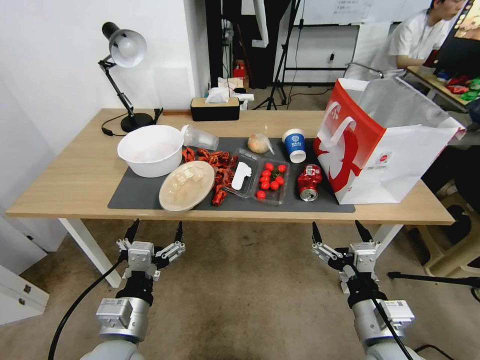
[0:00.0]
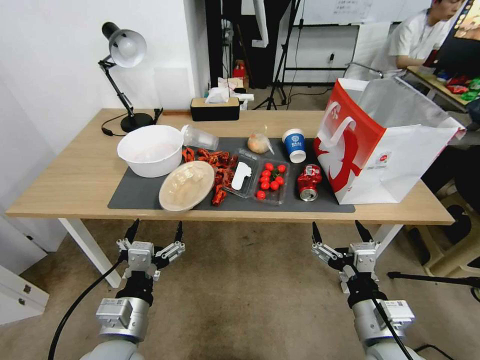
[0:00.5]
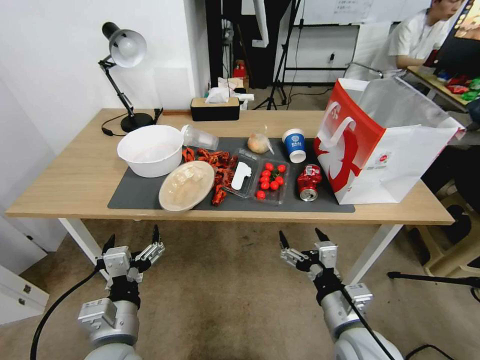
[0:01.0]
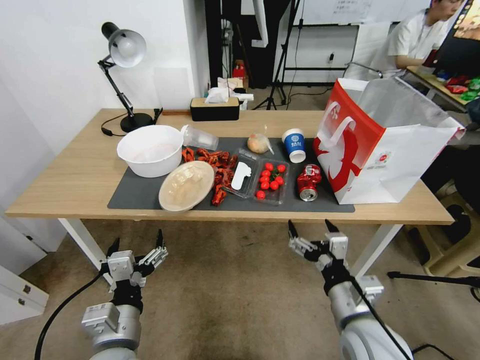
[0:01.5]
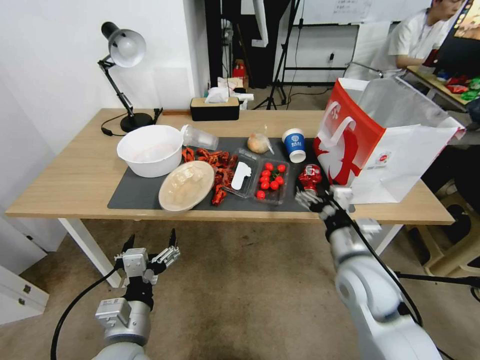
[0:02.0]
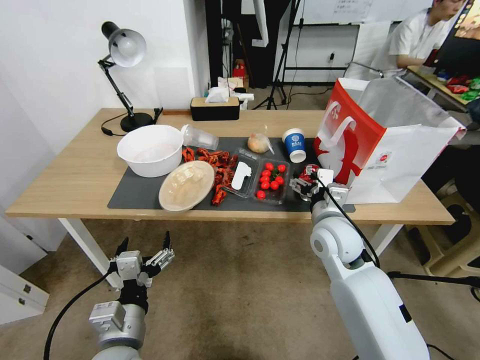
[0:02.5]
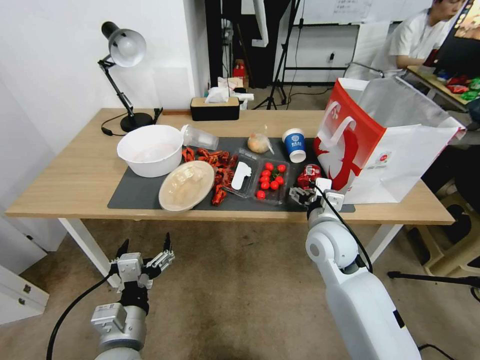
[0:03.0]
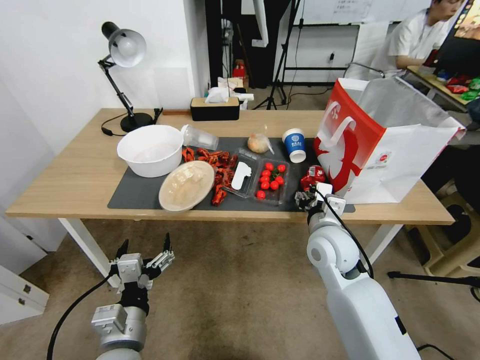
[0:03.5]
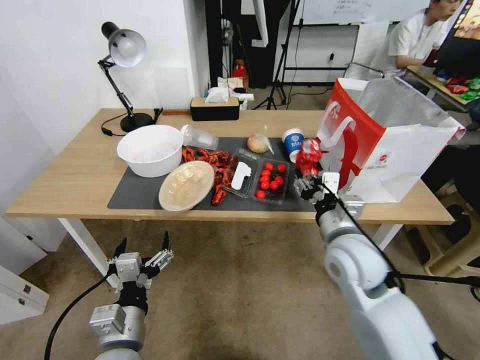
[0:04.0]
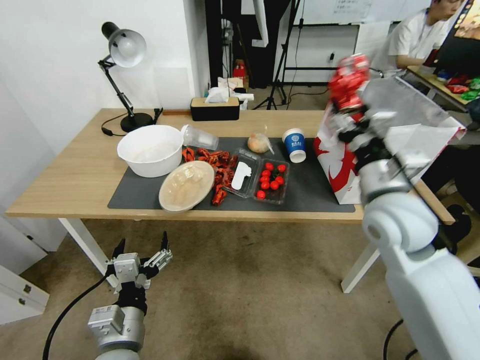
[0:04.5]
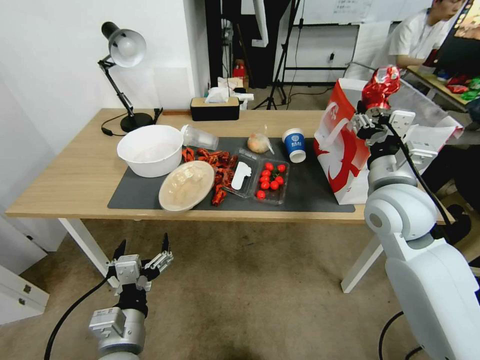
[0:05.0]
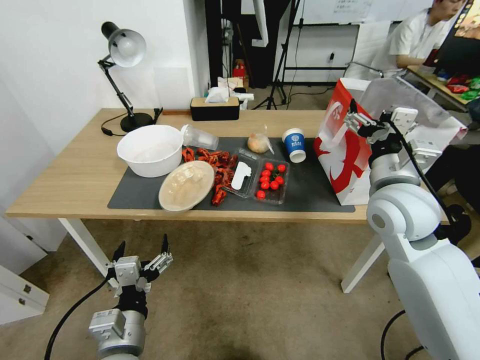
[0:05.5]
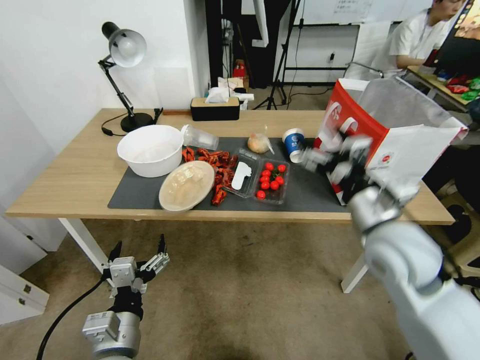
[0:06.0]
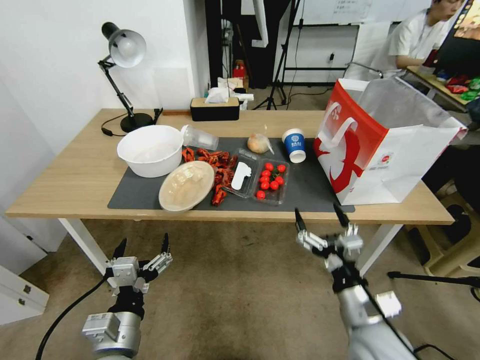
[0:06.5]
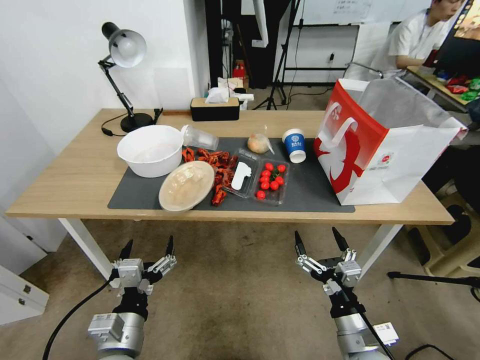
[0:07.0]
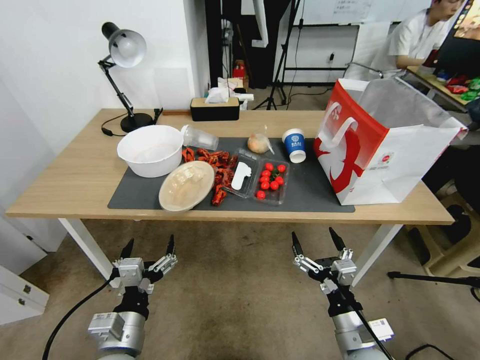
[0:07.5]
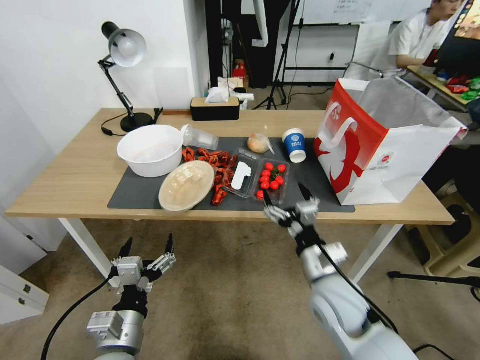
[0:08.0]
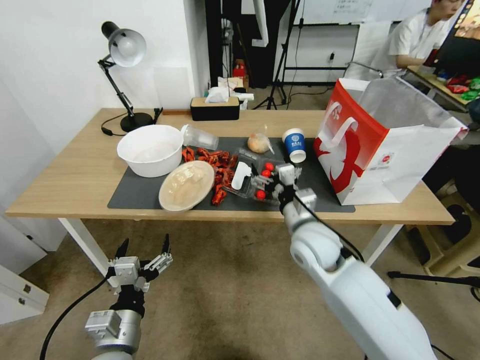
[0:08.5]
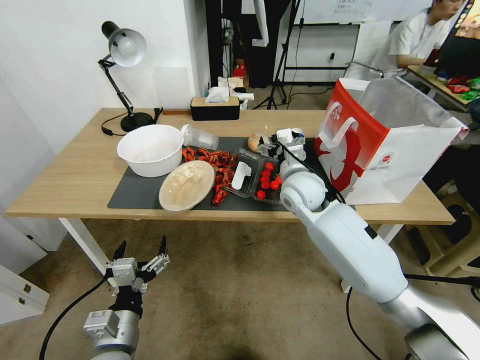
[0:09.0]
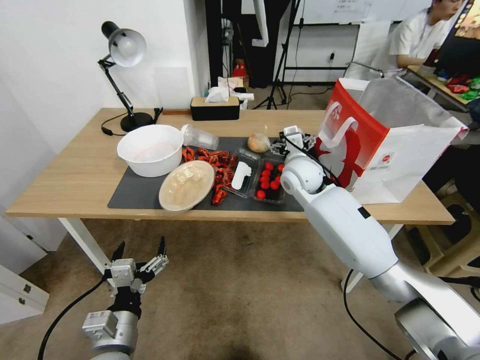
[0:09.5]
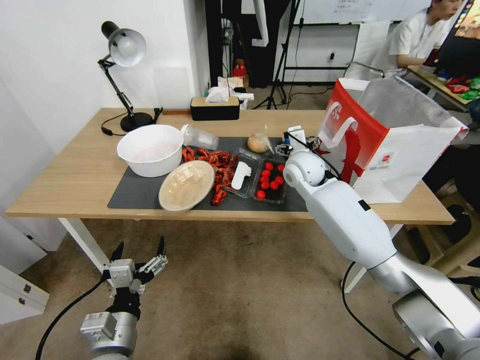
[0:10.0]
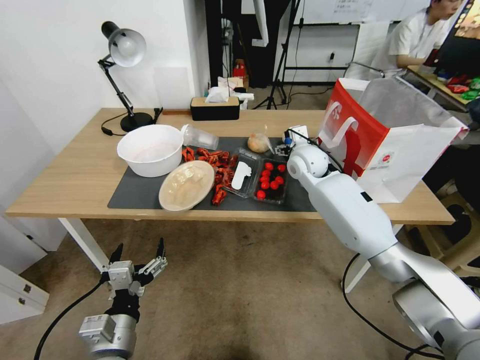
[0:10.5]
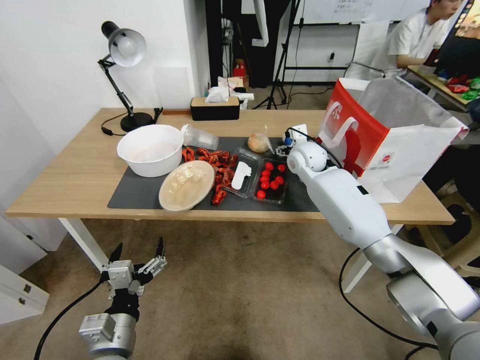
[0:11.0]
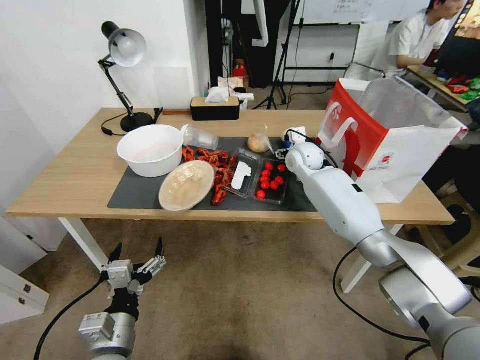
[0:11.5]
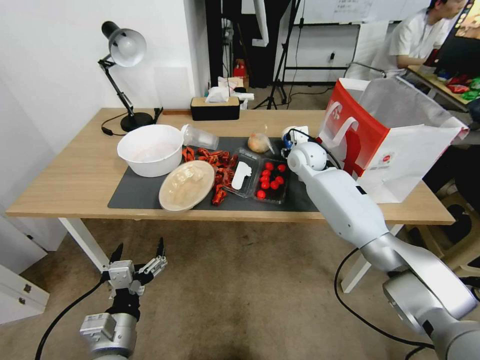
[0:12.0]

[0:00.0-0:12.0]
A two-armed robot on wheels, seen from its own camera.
0:02.0 to 0:04.0: The right gripper closes its fingers.
0:04.0 to 0:06.0: The right gripper is displaced upward by approximately 5 cm, and opens up.
0:06.0 to 0:08.0: The right gripper heads downward and to the left, covering roughly 15 cm.
0:08.0 to 0:10.0: The right gripper goes some 25 cm forward.
0:10.0 to 0:12.0: The right gripper goes some 5 cm forward, and closes up.

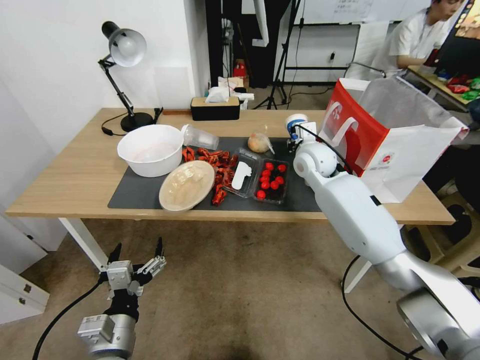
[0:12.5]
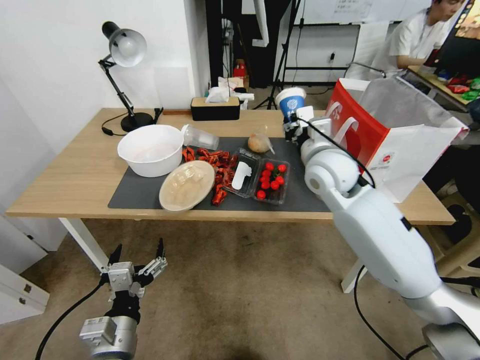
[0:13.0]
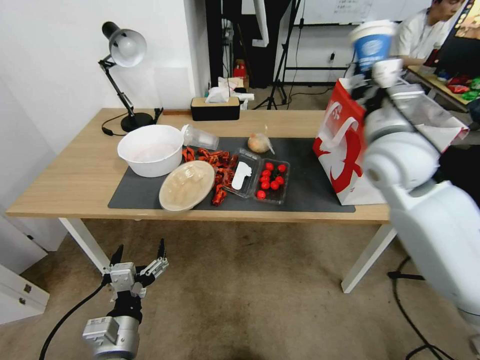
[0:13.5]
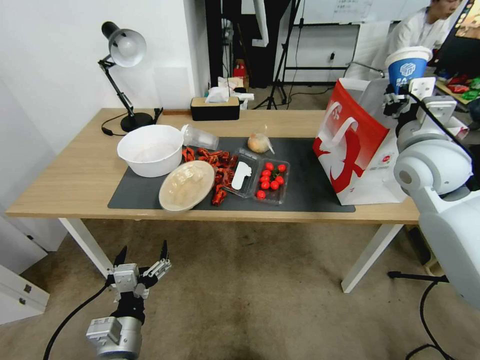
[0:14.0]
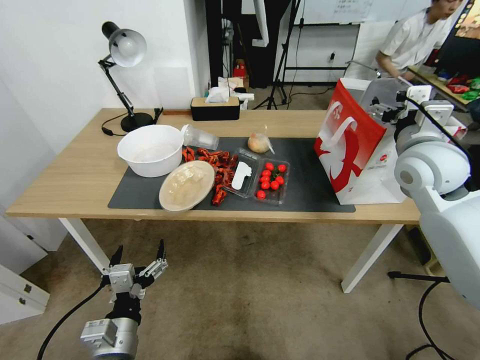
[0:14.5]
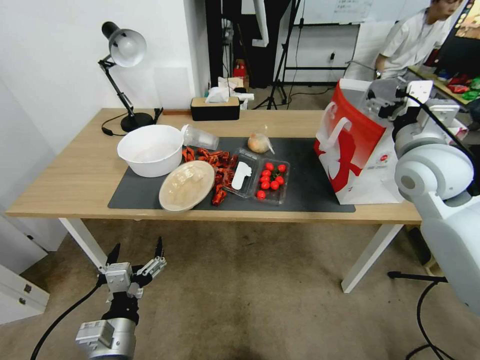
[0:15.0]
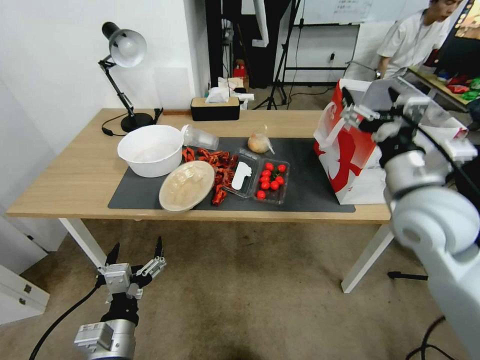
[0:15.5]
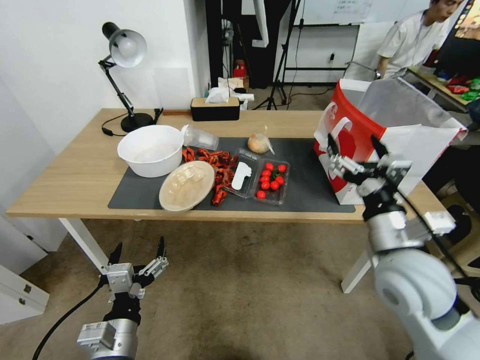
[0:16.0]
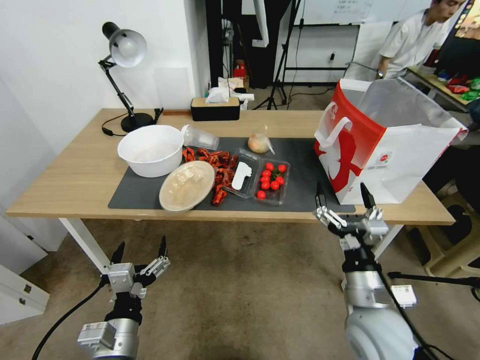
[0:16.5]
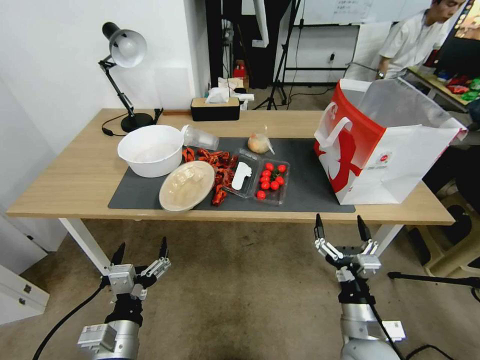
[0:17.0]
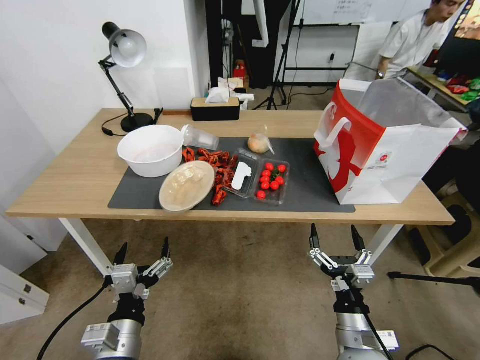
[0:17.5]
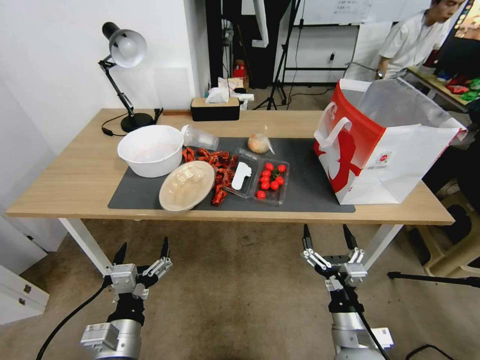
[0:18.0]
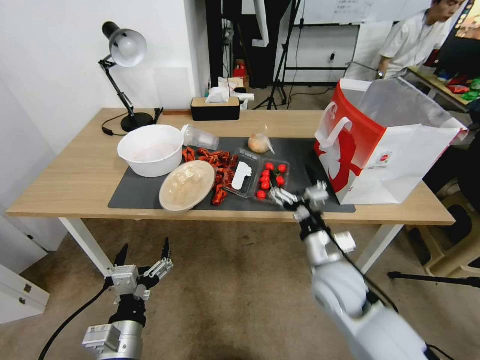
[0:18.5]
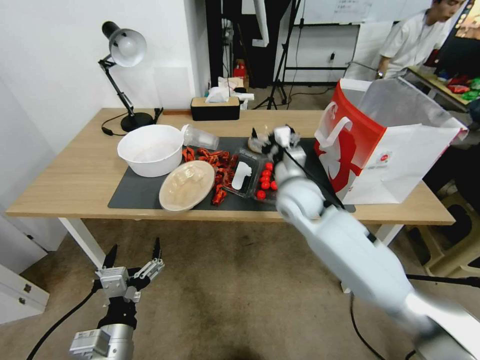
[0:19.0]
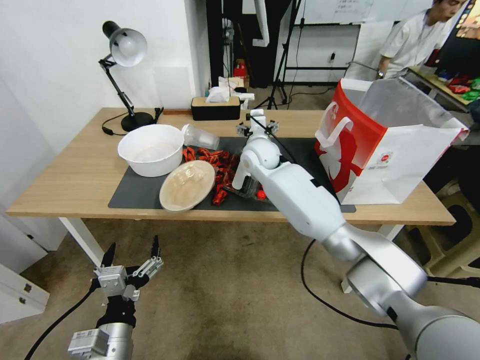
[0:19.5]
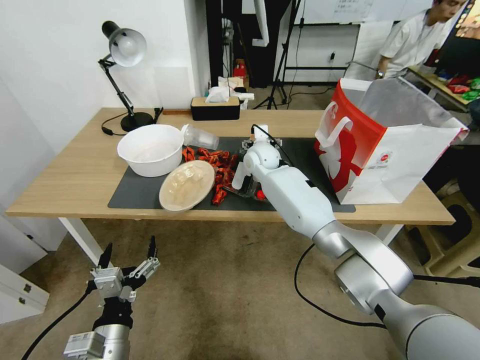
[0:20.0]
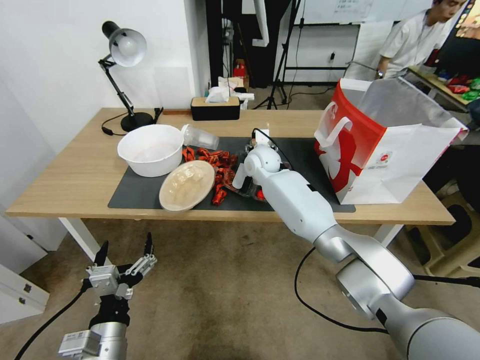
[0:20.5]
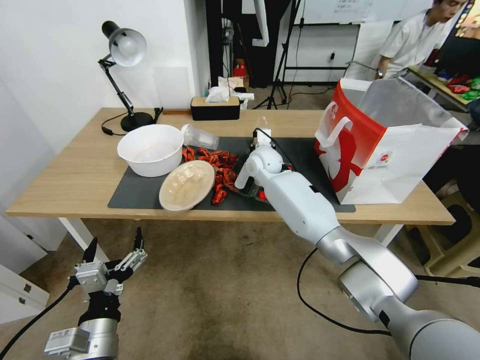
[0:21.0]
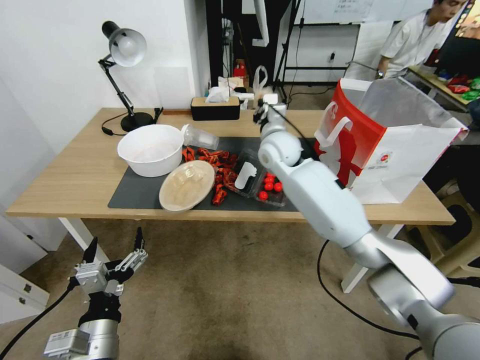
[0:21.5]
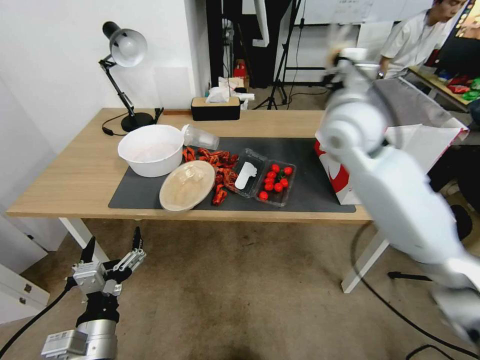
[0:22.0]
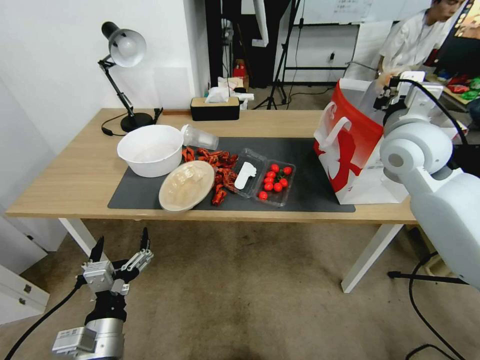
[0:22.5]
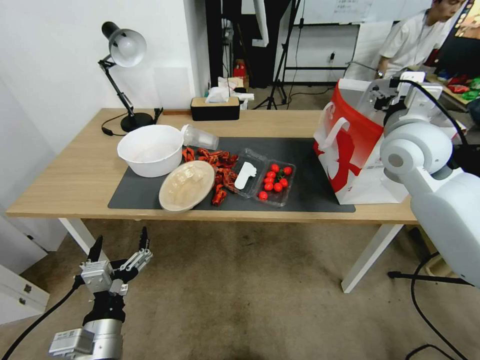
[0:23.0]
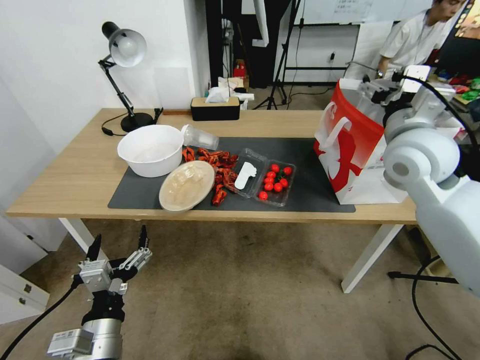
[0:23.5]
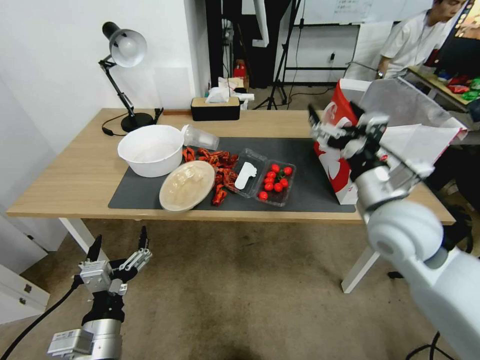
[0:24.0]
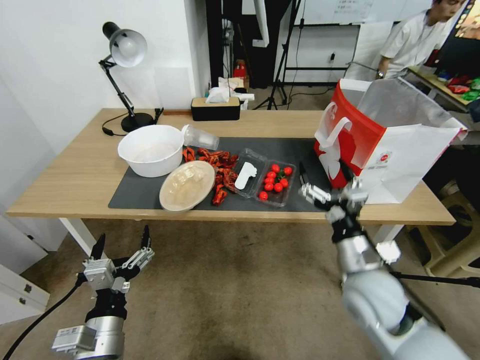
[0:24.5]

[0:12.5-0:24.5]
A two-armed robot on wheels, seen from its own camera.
0:12.5 to 0:14.5: The right gripper is displaced to the right, backward and upward by approximately 20 cm, and opens its fingers.
0:14.5 to 0:16.5: The right gripper moves backward, downward and to the left, roughly 30 cm.
0:16.5 to 0:18.5: The right gripper moves forward, roughly 5 cm.
0:18.5 to 0:20.5: The right gripper goes about 35 cm forward and to the left.
0:20.5 to 0:22.5: The right gripper is displaced to the right, upward and backward by approximately 35 cm, and closes its fingers.
0:22.5 to 0:24.5: The right gripper travels downward and backward by about 30 cm, and opens.

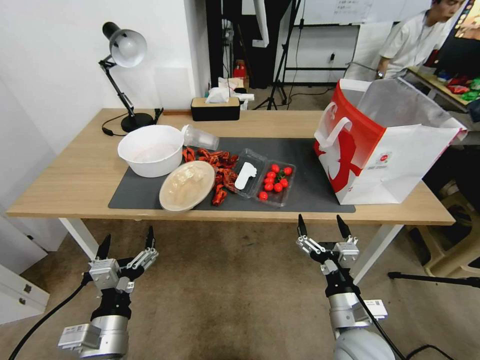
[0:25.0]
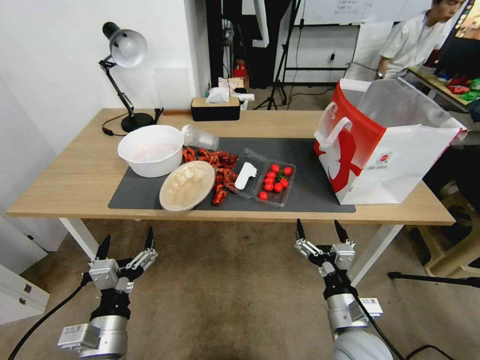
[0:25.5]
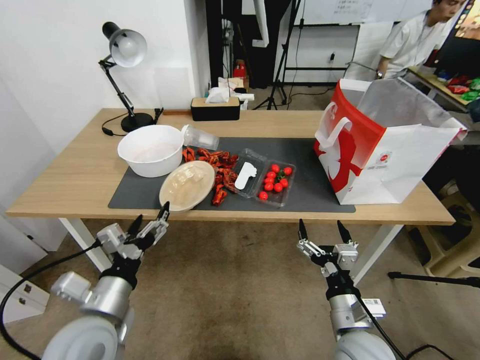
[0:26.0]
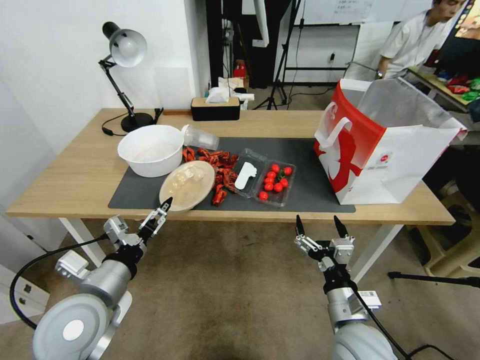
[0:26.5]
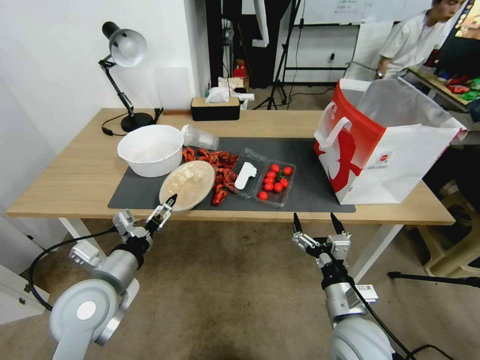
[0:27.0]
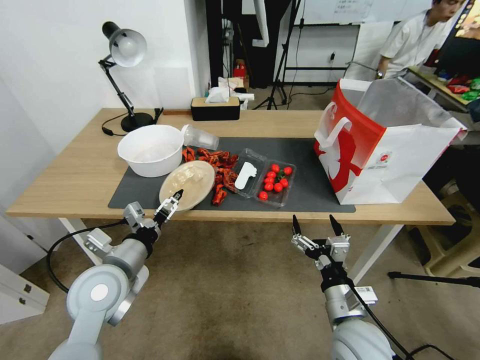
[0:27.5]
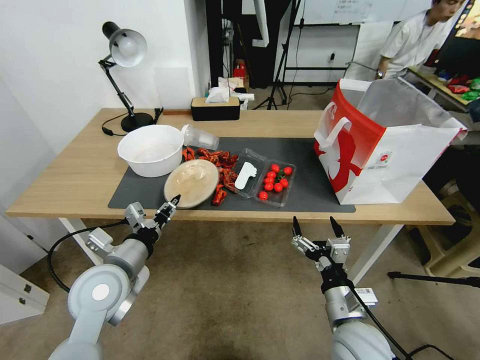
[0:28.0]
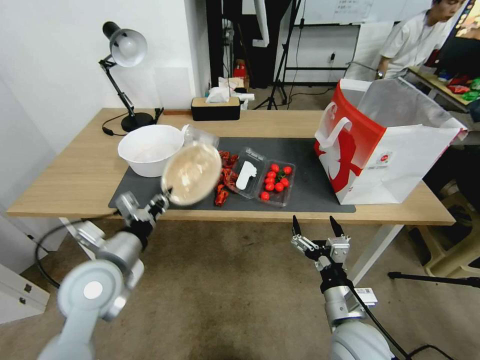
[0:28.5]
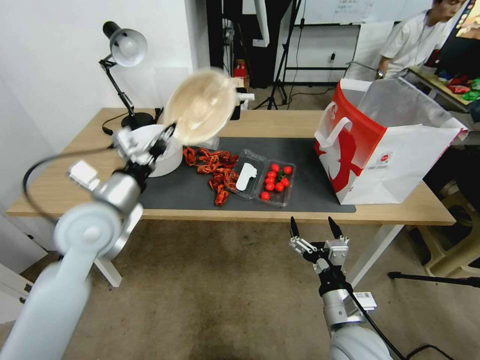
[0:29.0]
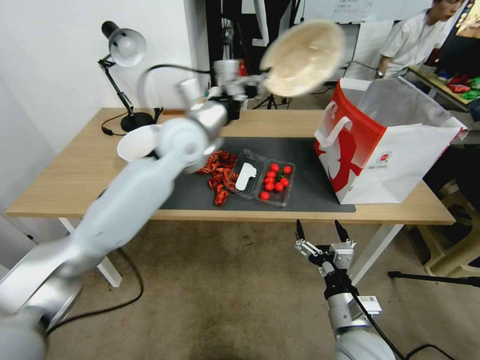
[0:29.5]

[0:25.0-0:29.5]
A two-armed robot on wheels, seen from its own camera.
0:25.0 to 0:27.0: The left gripper travels forward and upward by some 10 cm.
0:27.0 to 0:29.5: The left gripper heads forward, upward and to the right, covering approximately 35 cm, and closes up.
